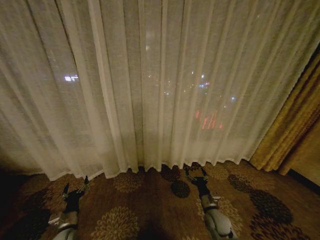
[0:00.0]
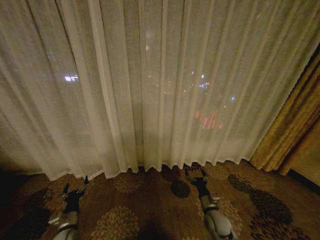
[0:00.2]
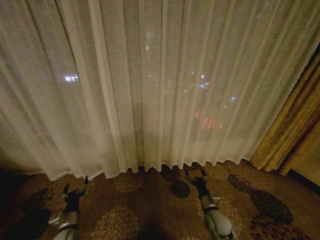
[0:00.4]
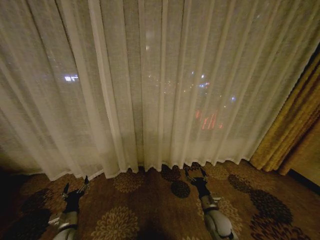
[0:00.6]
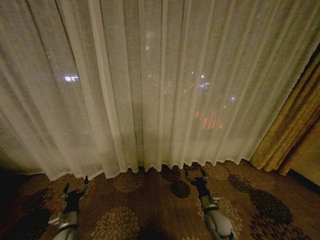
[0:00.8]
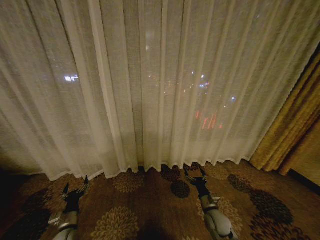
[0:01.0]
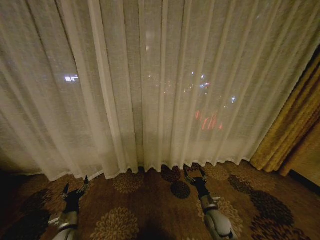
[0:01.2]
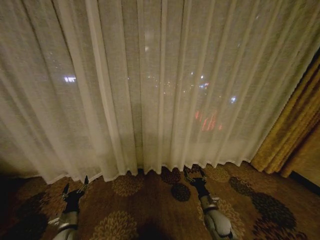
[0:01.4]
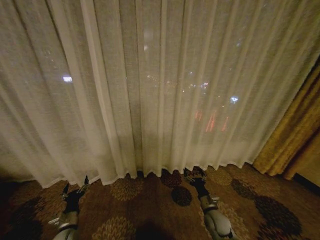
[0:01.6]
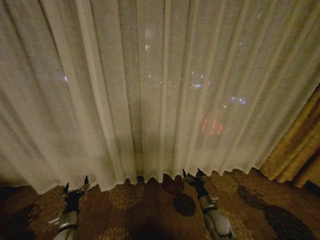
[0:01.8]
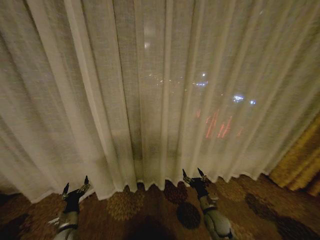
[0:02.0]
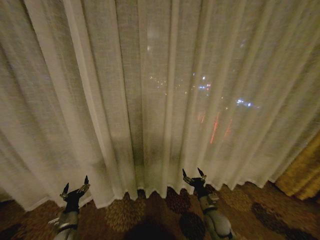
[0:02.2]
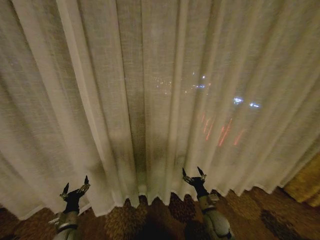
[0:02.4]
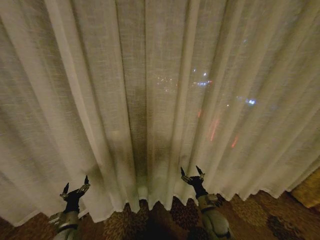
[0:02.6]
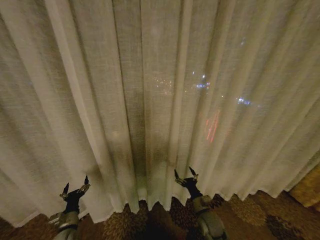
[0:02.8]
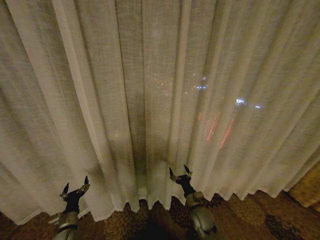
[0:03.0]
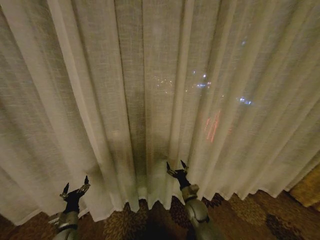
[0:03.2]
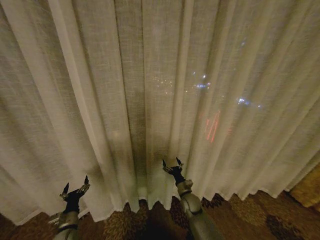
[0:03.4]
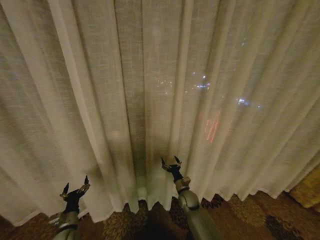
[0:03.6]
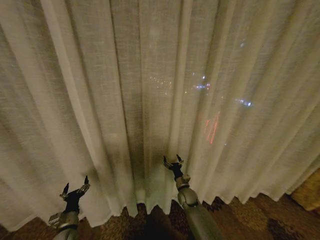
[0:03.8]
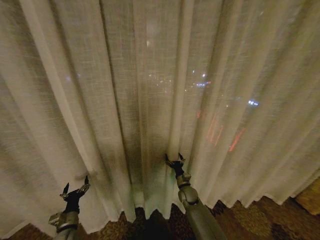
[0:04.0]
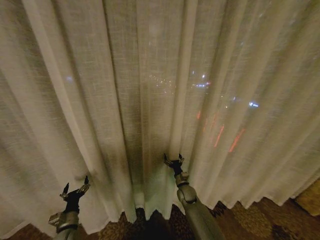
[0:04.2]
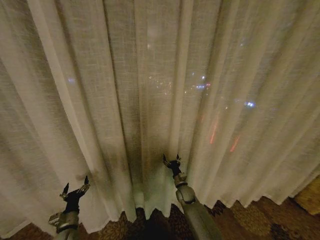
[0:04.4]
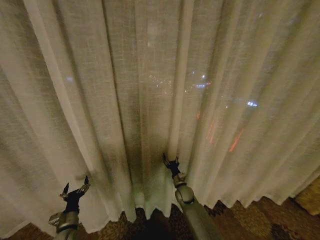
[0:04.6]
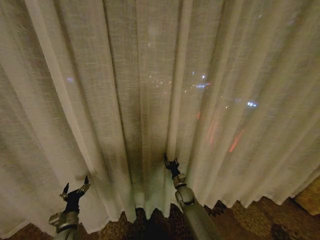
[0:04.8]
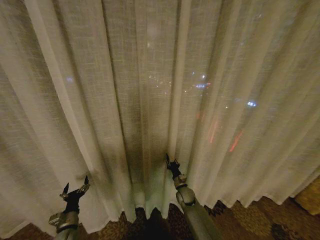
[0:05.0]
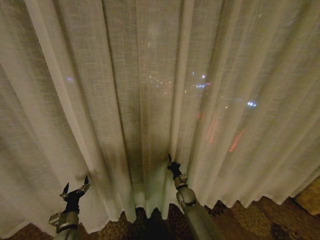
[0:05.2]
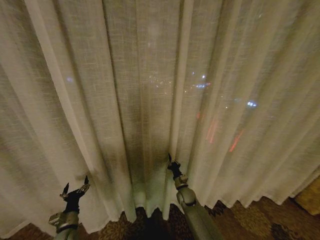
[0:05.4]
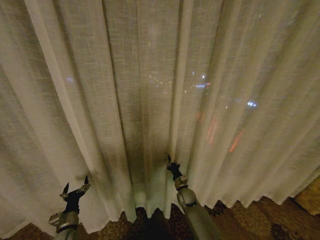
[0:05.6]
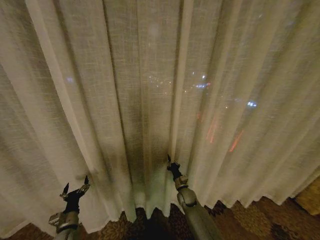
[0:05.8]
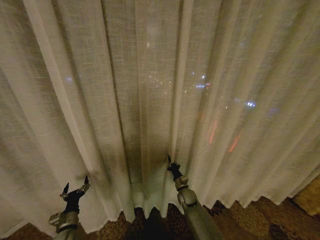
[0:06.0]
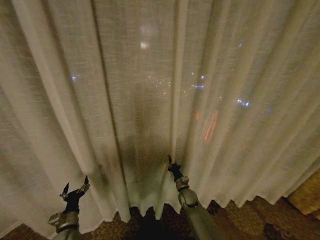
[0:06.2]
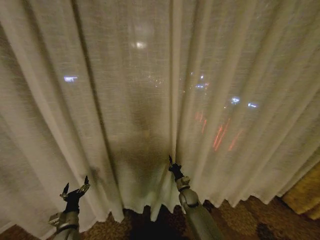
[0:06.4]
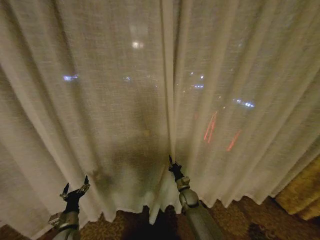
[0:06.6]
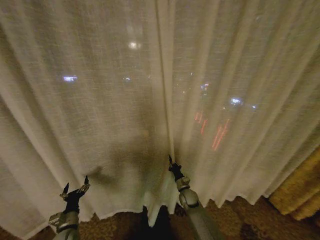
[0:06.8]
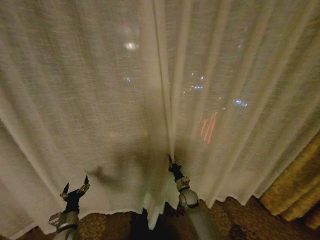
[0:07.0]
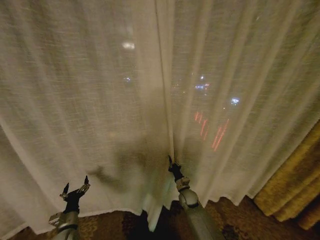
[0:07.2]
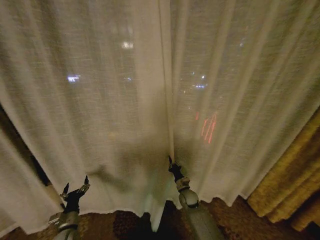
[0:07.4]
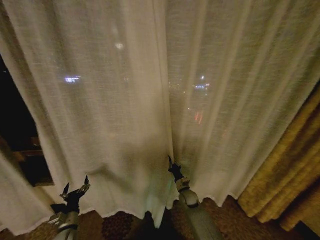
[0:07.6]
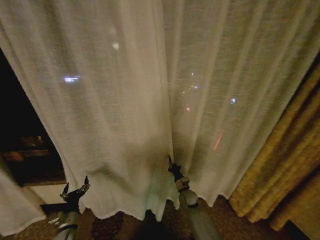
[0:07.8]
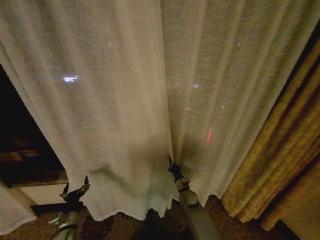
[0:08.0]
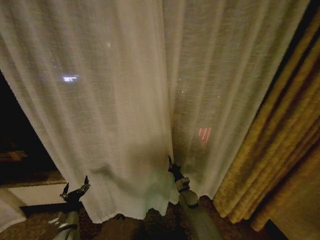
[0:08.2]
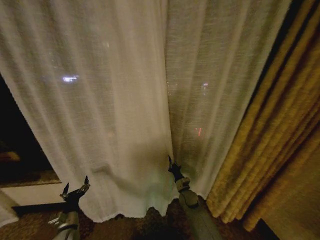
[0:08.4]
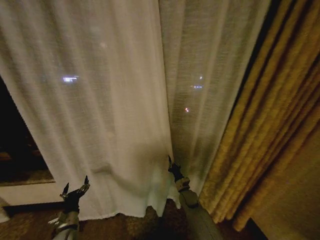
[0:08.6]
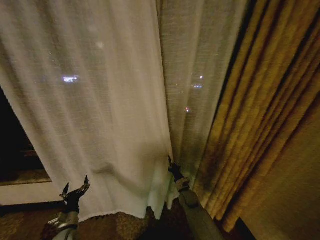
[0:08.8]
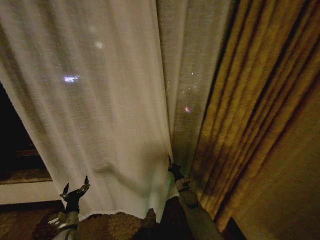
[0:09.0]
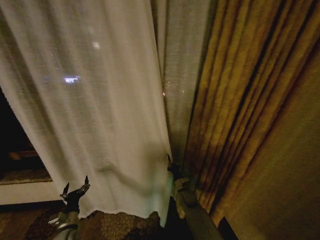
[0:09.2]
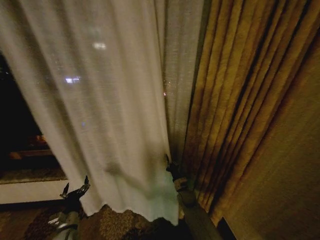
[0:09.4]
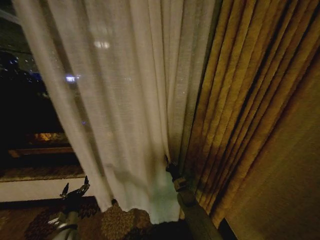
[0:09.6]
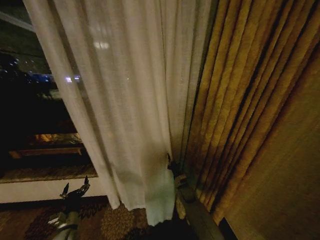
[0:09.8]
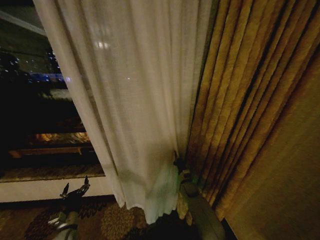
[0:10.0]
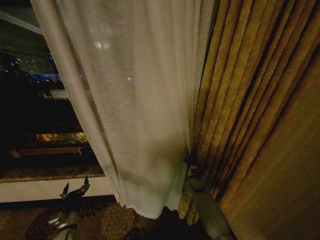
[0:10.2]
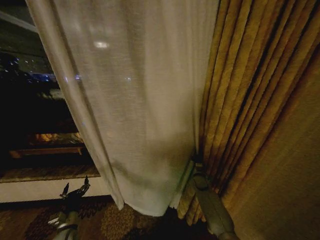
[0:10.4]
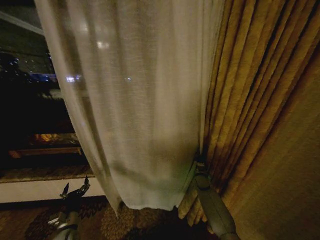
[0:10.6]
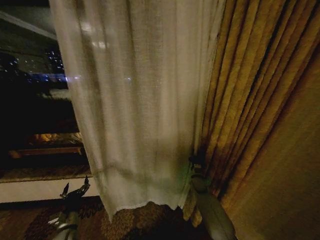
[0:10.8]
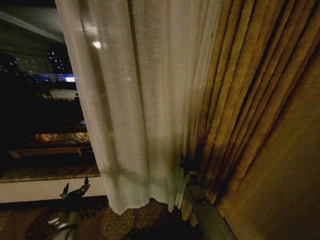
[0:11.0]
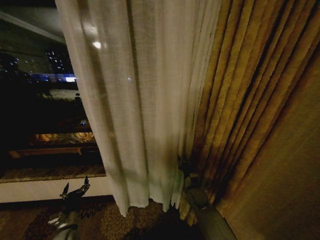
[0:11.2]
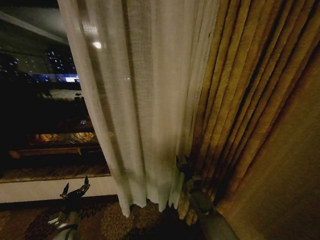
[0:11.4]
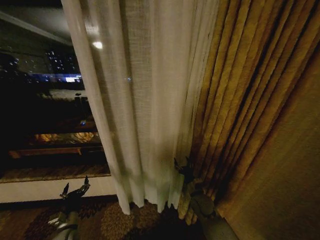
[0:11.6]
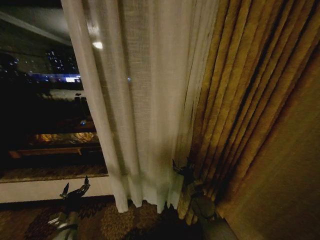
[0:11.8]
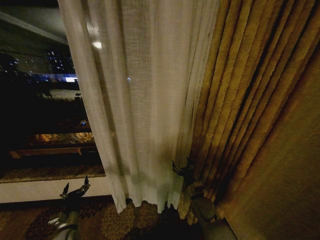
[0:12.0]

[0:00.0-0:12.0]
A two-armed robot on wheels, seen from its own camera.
Task of the whole recording: Open the curtains by pulling them apart, changing their state from closed to fully open.
0:01.6 to 0:03.0: The right gripper shifts approximately 5 cm to the left.
0:03.0 to 0:04.4: The right gripper goes roughly 10 cm forward.
0:04.4 to 0:06.0: The right gripper closes its fingers.
0:09.0 to 0:10.4: The right gripper shifts some 10 cm to the right and forward.
0:10.4 to 0:12.0: The right gripper goes about 15 cm backward, and opens.

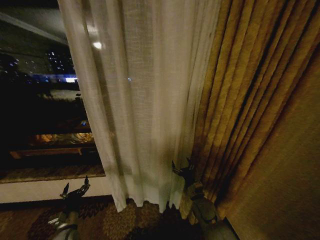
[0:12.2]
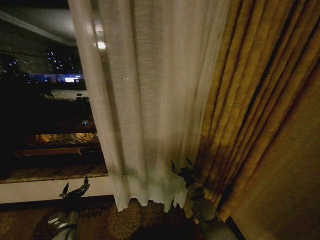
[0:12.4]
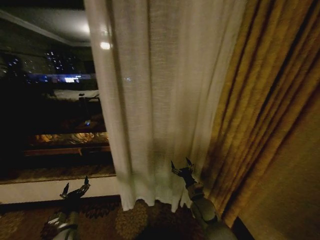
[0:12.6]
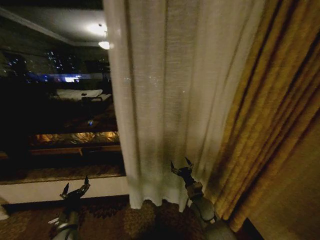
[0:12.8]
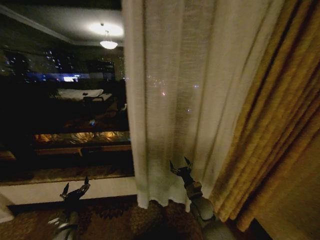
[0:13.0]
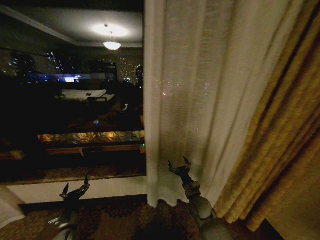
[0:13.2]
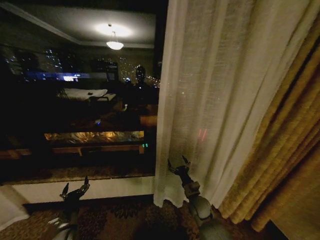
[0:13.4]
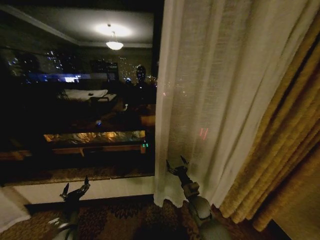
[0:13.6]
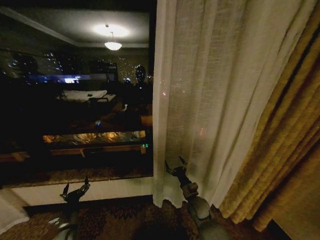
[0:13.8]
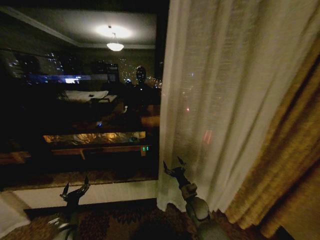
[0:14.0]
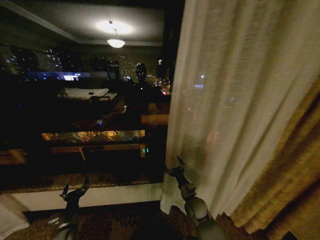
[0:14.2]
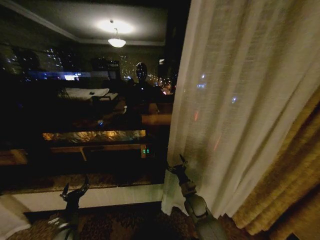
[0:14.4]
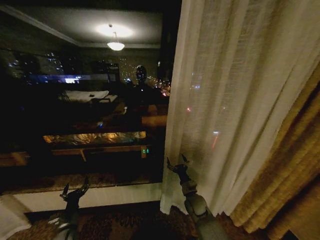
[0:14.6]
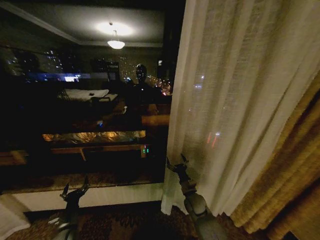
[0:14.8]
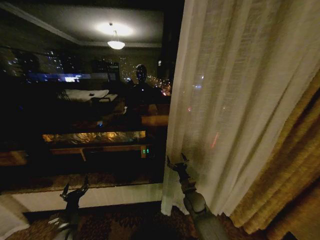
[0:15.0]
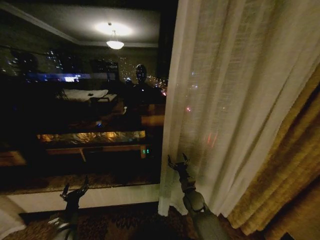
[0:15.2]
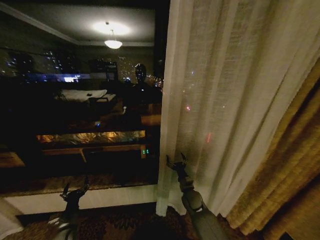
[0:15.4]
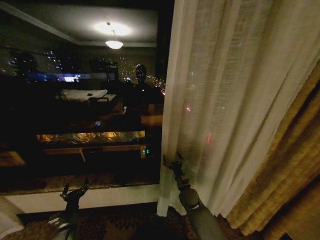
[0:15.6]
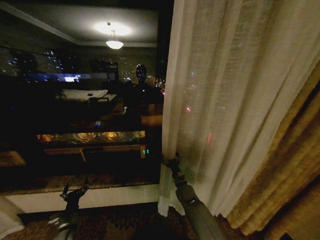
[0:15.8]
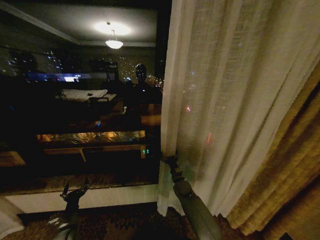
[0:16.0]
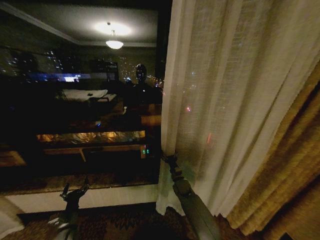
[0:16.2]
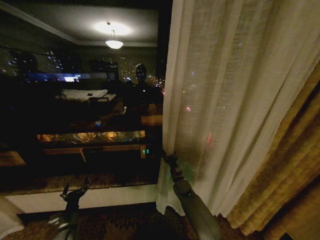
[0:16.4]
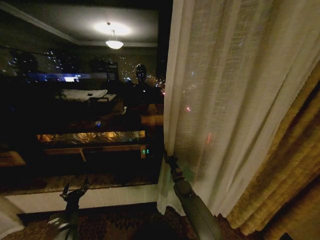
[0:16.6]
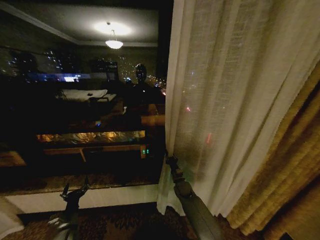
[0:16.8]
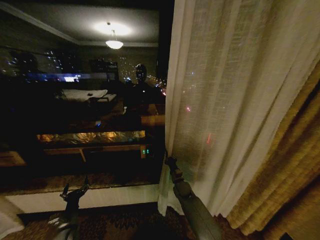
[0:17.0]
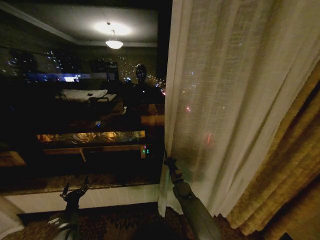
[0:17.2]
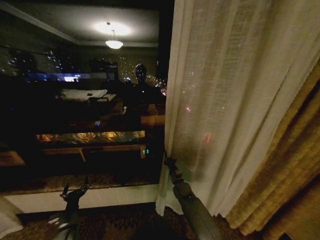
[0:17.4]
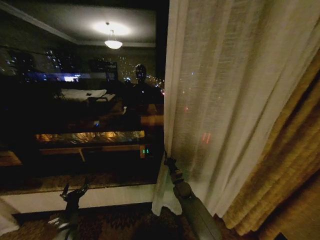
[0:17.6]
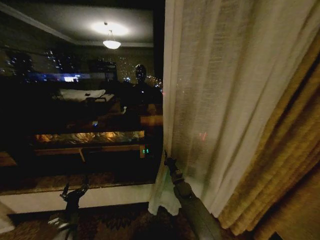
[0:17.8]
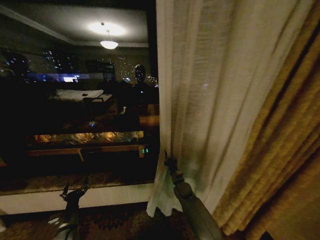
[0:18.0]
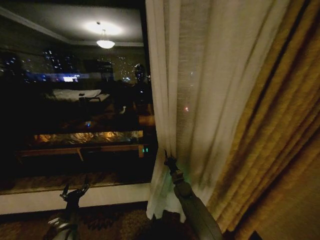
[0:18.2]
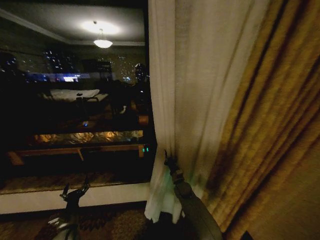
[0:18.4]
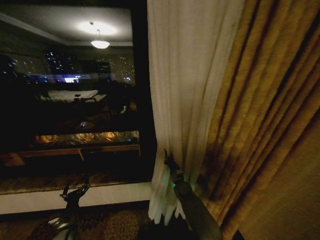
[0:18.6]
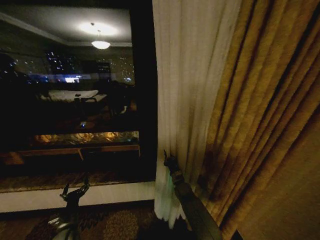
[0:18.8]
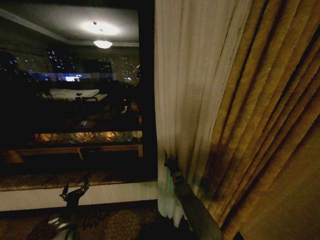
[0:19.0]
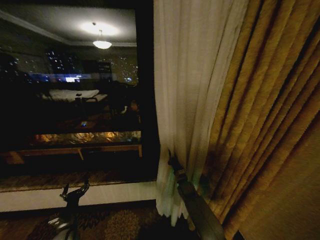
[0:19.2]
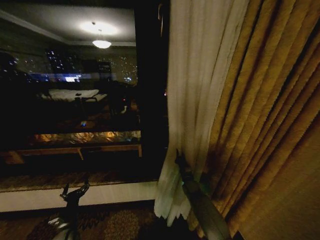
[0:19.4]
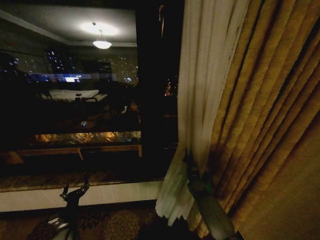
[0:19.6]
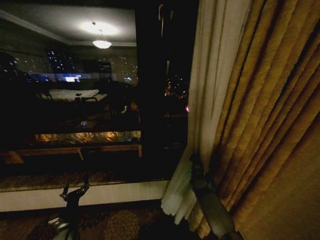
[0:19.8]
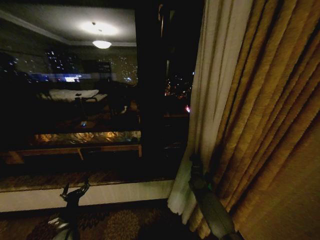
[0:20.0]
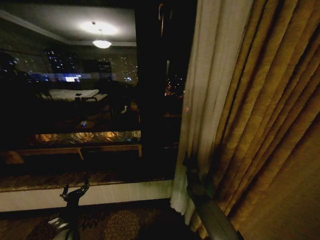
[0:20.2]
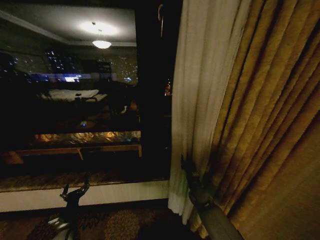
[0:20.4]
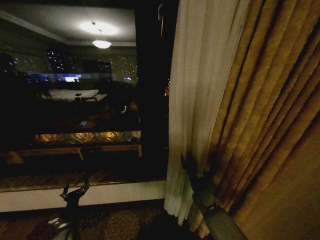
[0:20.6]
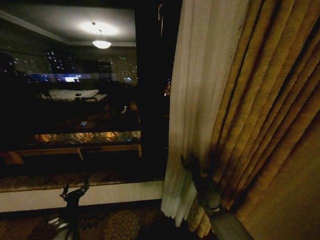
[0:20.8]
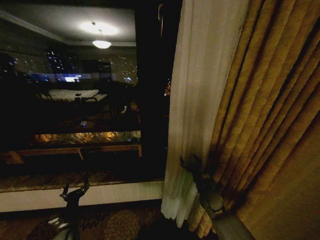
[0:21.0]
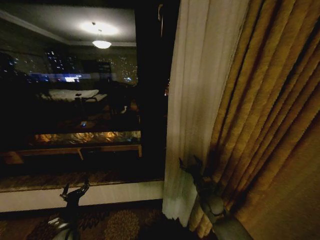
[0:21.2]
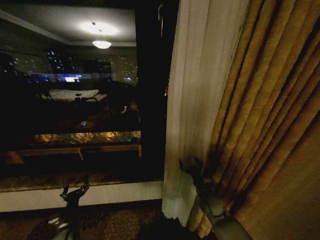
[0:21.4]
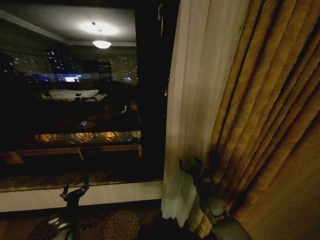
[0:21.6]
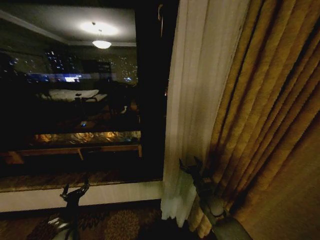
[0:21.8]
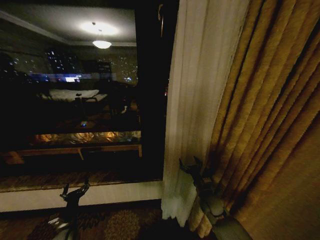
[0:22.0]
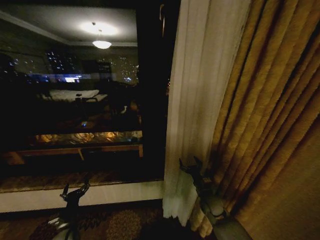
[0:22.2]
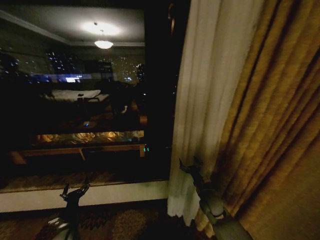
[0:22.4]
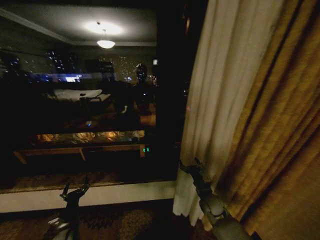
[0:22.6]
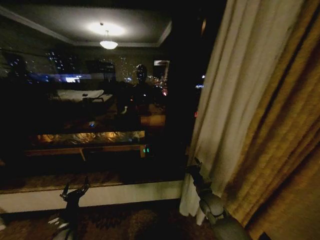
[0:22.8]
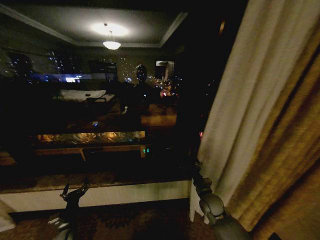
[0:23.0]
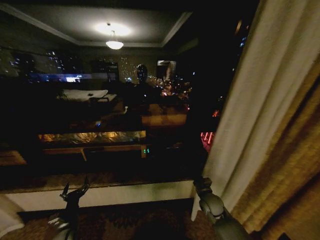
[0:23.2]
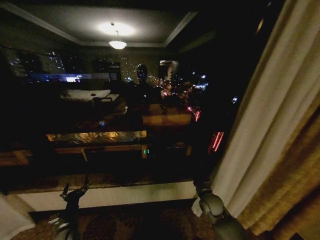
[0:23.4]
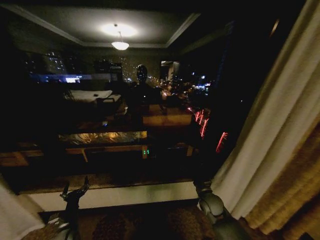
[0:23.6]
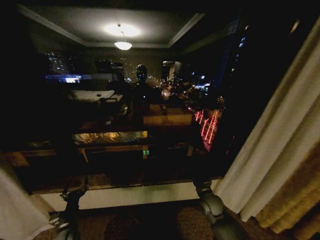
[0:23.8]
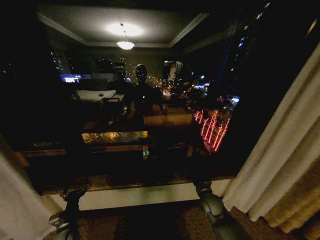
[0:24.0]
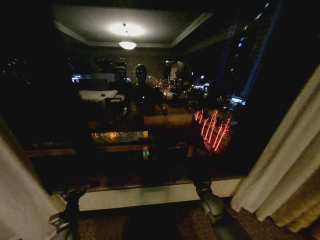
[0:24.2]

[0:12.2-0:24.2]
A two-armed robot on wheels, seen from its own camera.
Task of the whole recording: Open the curtains by pulling them apart, changing their state from closed to fully open.
0:15.2 to 0:16.6: The right gripper travels forward by roughly 10 cm, and closes up.
0:16.6 to 0:18.2: The right gripper closes.
0:18.2 to 0:19.8: The right gripper shifts some 10 cm to the right.
0:19.8 to 0:21.2: The right gripper shifts roughly 15 cm backward and upward, and opens its fingers.
